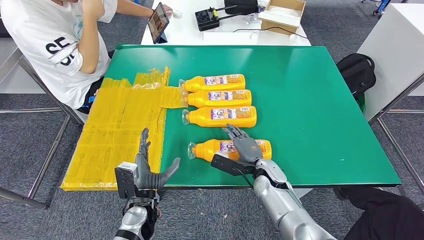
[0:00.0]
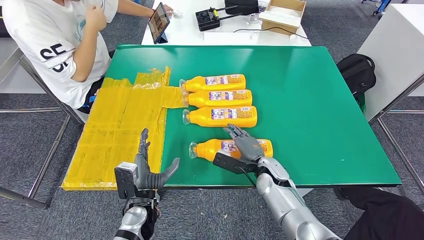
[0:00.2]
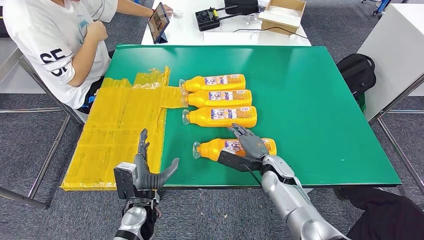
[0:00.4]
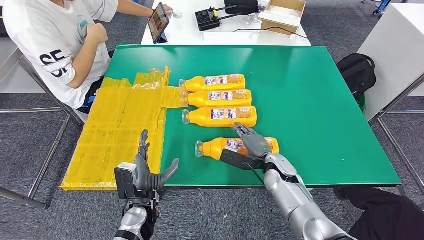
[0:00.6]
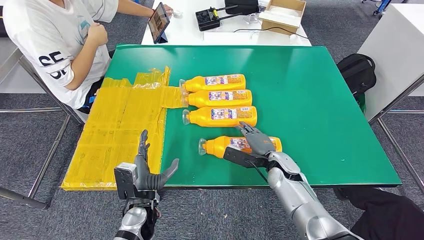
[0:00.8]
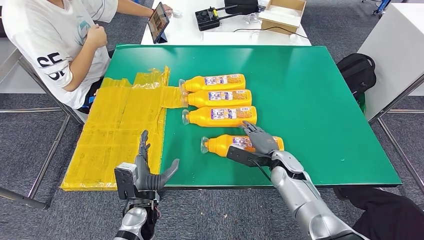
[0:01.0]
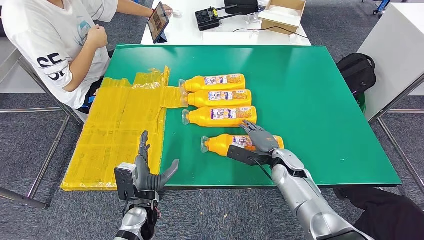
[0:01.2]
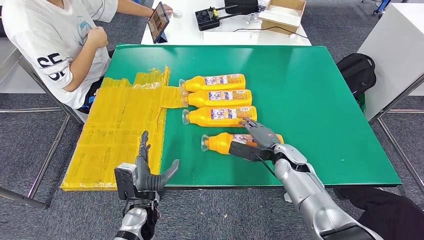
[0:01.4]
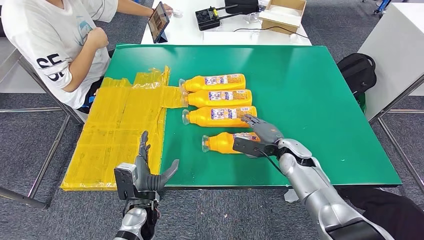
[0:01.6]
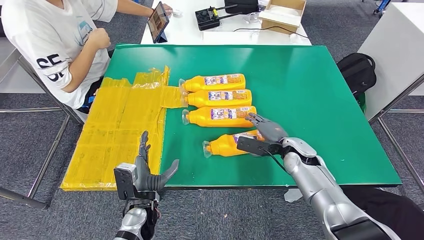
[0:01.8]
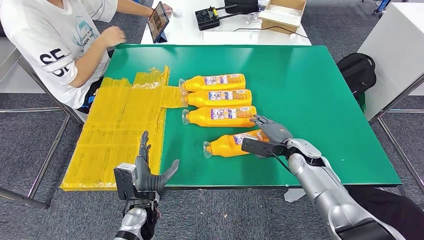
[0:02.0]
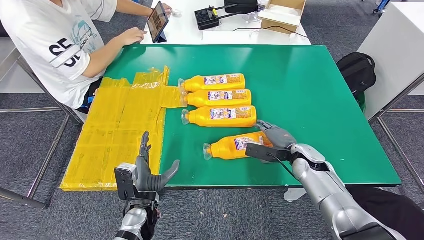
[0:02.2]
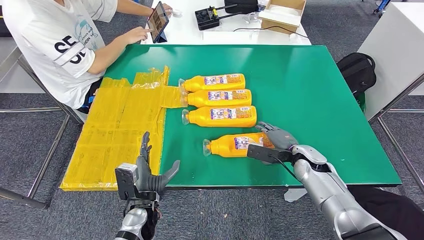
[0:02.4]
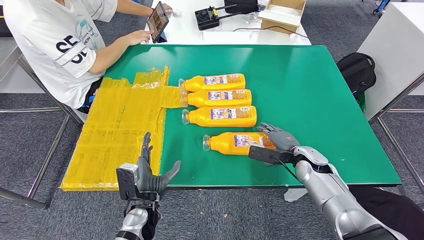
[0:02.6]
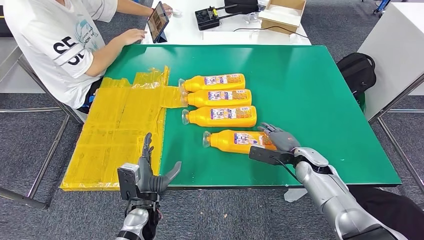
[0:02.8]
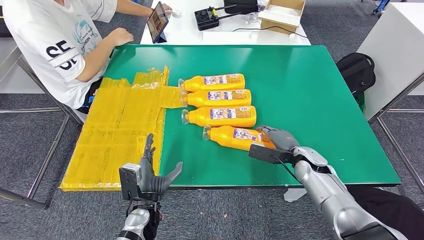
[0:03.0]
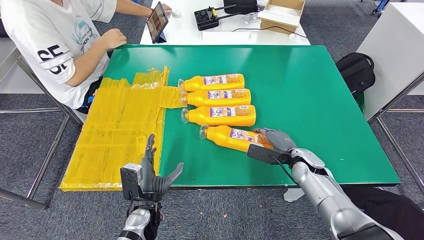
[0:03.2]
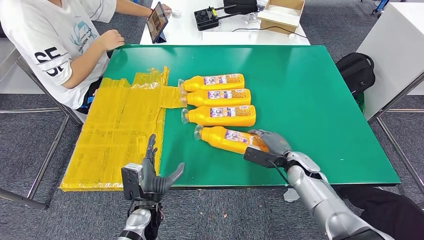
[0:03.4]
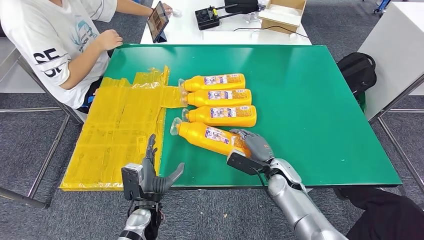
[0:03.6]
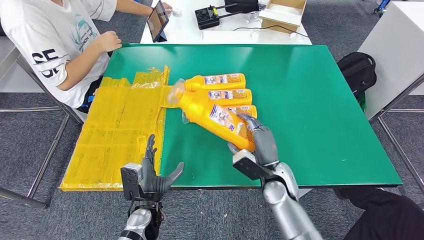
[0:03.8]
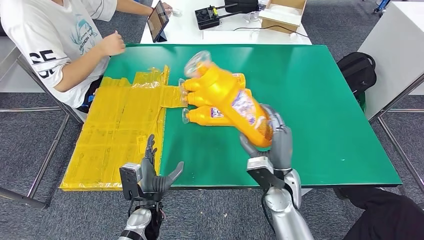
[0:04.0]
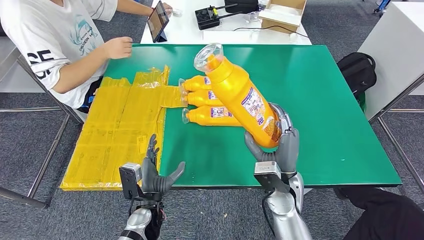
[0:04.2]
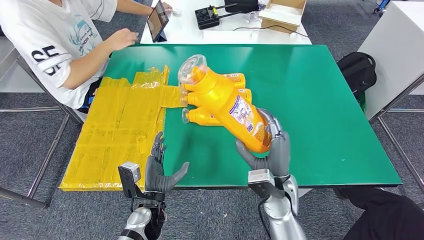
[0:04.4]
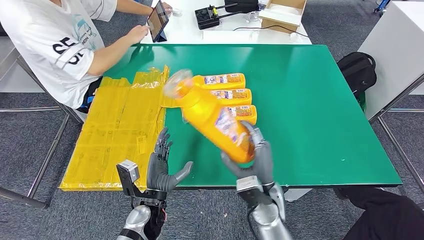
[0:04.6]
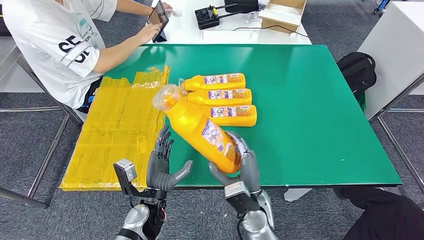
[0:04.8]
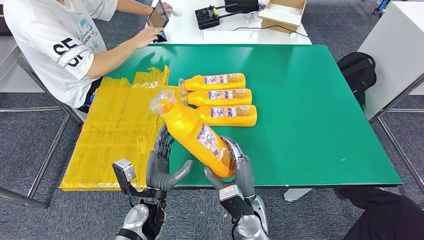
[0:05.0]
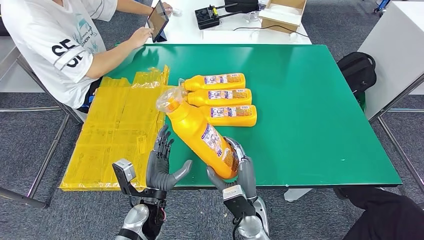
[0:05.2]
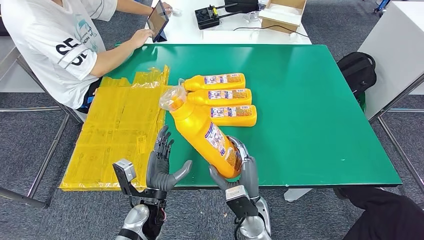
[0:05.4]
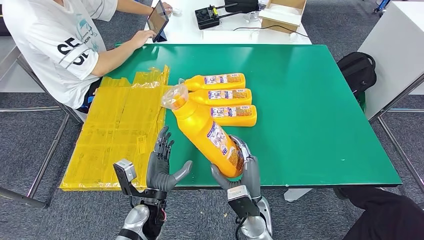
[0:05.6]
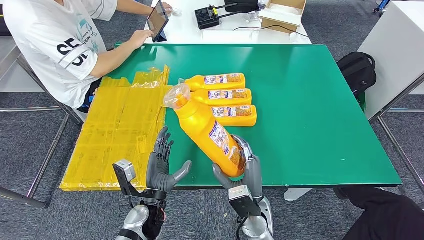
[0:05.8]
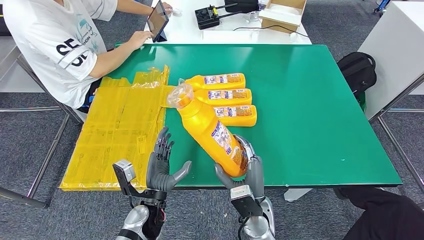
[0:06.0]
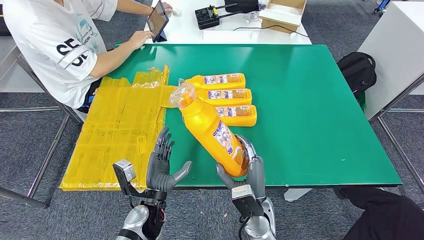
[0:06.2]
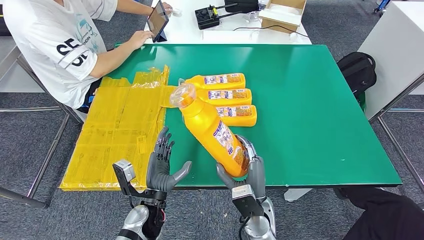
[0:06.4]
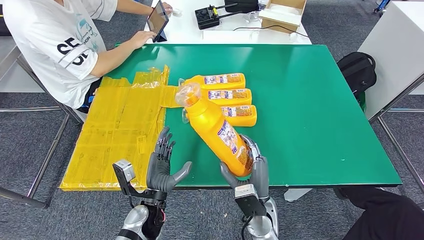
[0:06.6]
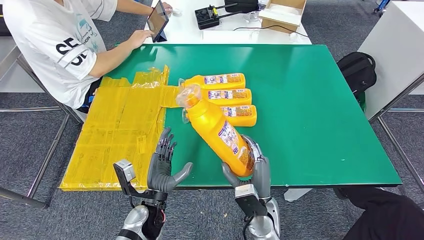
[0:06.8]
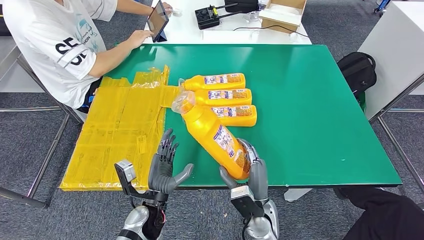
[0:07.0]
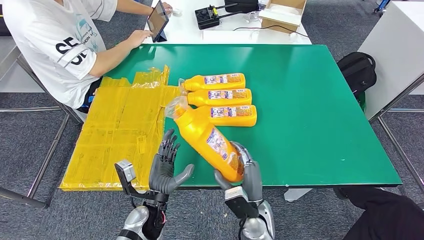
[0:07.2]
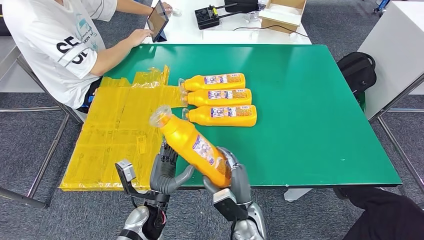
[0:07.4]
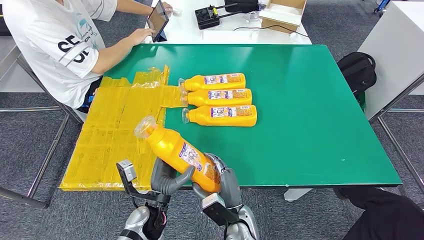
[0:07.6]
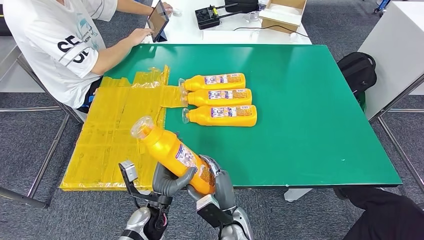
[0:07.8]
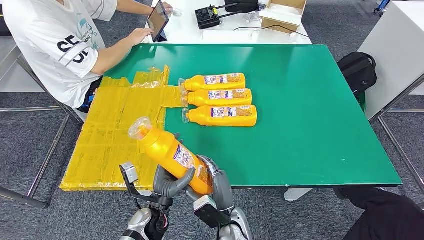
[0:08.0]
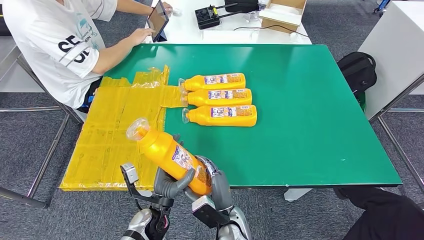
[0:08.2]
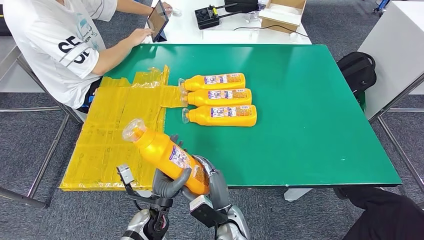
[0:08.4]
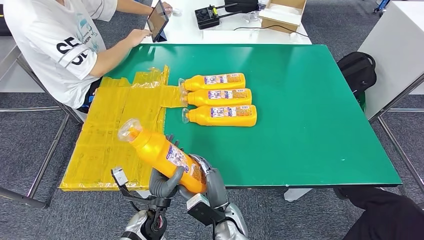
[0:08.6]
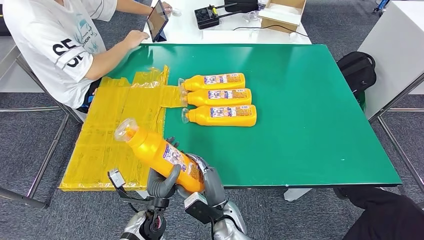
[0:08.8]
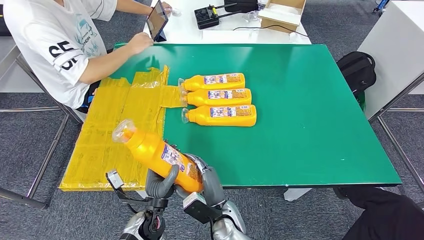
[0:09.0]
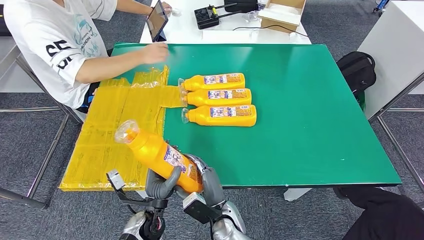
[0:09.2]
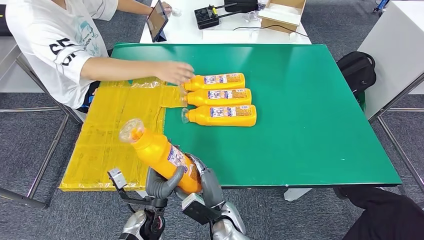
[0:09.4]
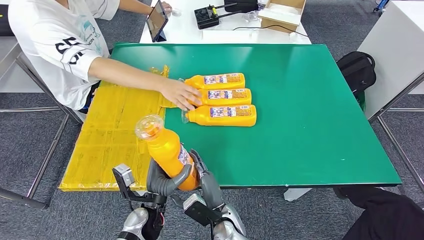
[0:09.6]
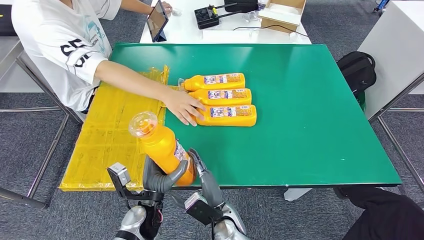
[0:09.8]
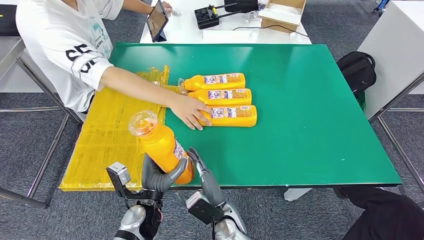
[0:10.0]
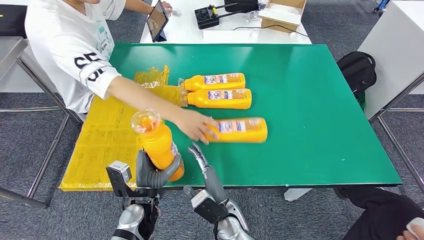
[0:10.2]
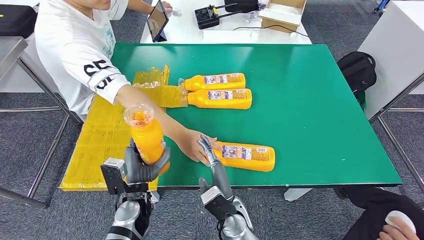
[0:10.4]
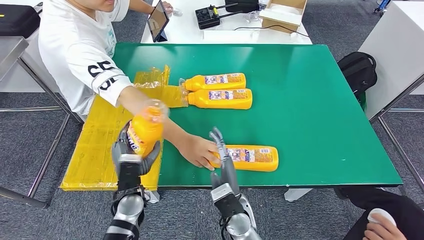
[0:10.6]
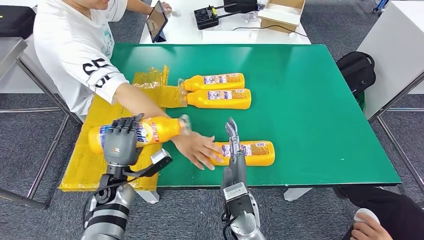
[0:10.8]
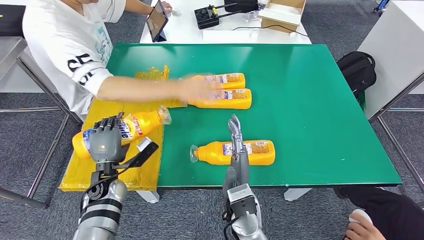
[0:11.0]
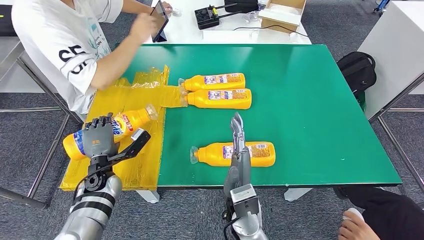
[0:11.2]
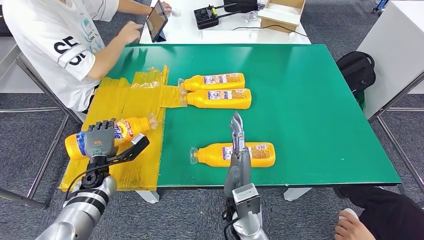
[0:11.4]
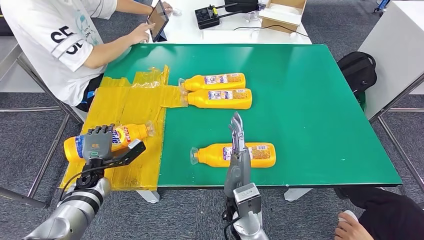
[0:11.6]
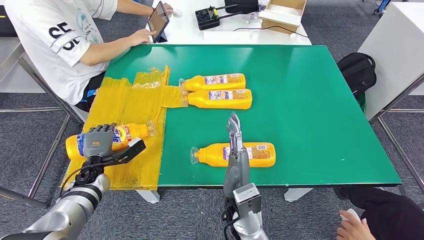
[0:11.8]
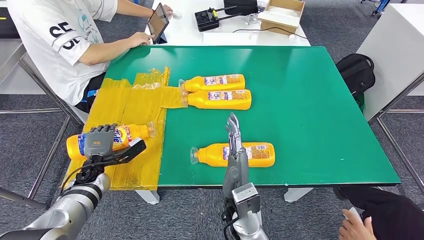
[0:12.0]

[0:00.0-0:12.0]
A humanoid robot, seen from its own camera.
Step, 0:00.0 to 0:04.6: Take the bottle from the table.
Step, 0:05.0 to 0:11.6: Flip the bottle to face forward.
0:00.0 to 0:01.6: The right hand is displaced to the right by about 5 cm.
0:01.6 to 0:03.0: The right hand changes place by approximately 5 cm.
0:03.0 to 0:04.4: The right hand is displaced to the left and backward by some 15 cm.
0:04.4 to 0:06.0: The right hand is displaced downward and to the left by roughly 10 cm.
0:06.0 to 0:07.6: The right hand changes place by approximately 5 cm.
0:07.6 to 0:09.0: The hands make only small movements.

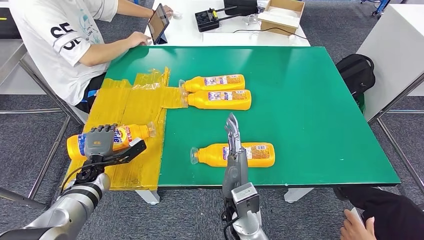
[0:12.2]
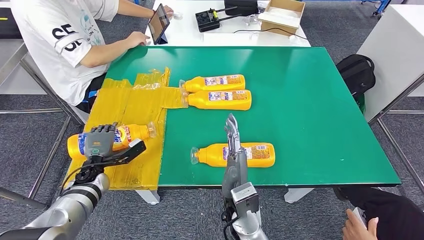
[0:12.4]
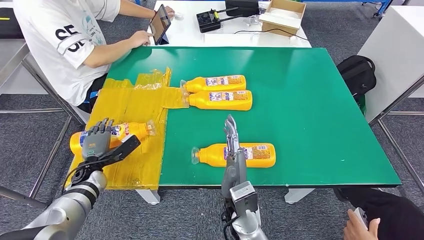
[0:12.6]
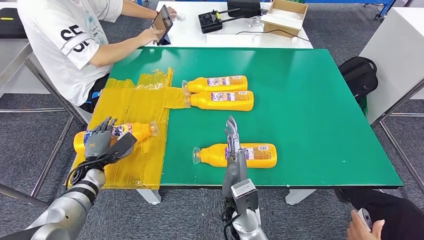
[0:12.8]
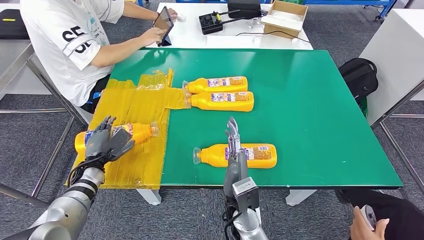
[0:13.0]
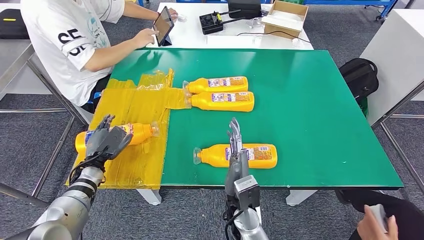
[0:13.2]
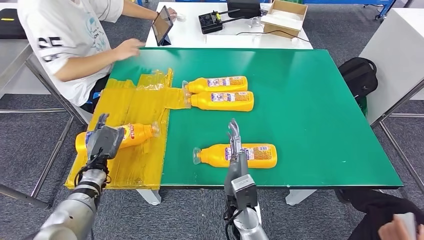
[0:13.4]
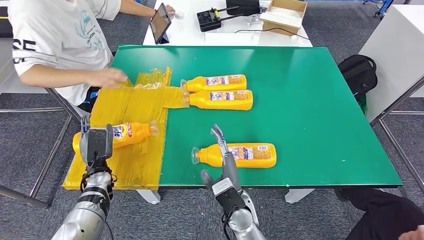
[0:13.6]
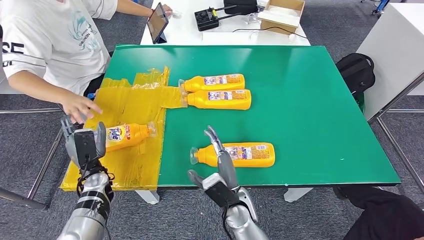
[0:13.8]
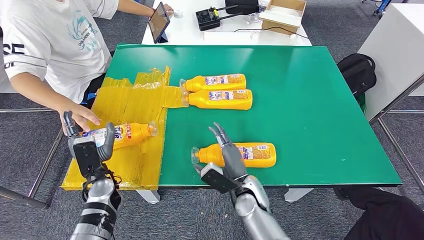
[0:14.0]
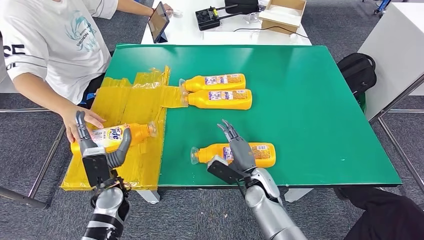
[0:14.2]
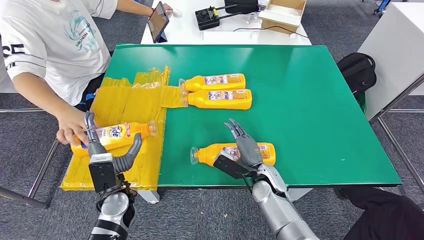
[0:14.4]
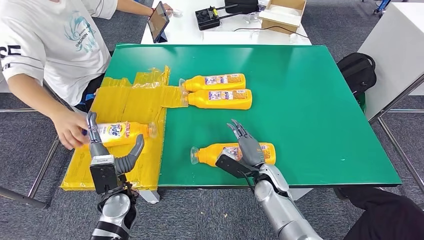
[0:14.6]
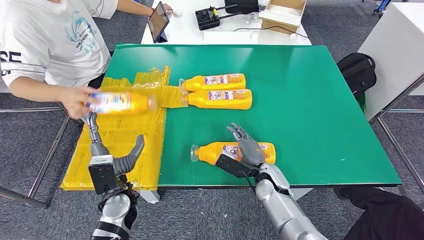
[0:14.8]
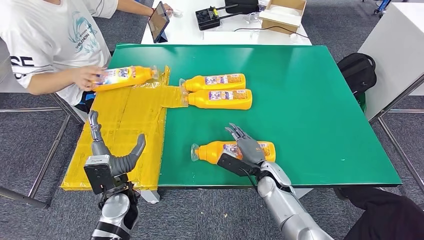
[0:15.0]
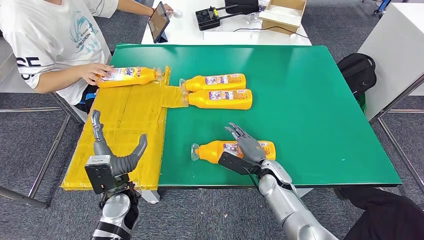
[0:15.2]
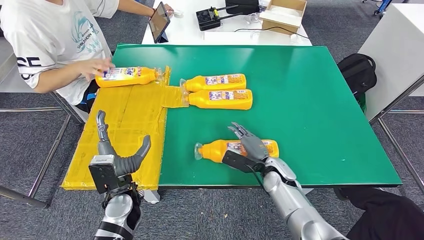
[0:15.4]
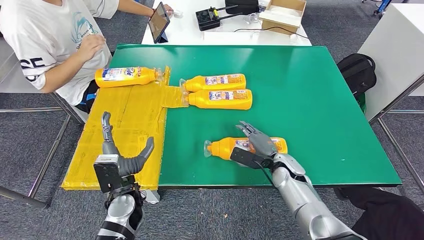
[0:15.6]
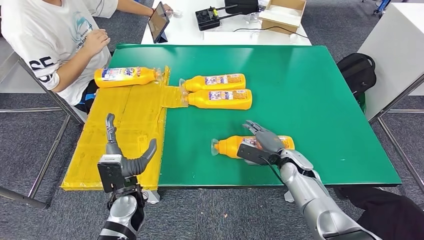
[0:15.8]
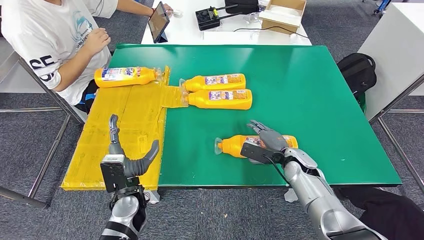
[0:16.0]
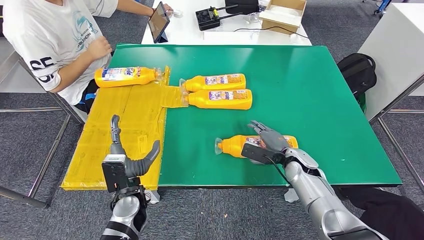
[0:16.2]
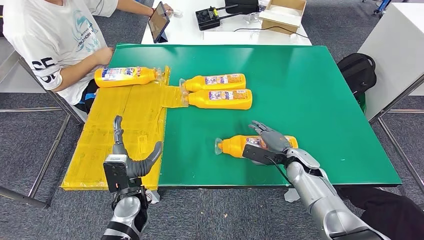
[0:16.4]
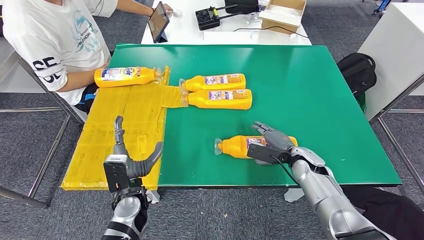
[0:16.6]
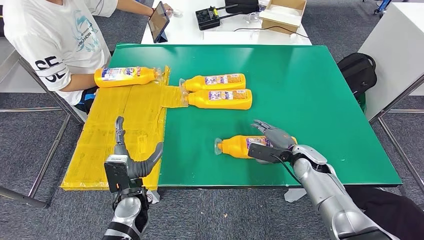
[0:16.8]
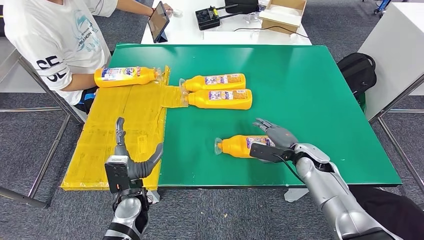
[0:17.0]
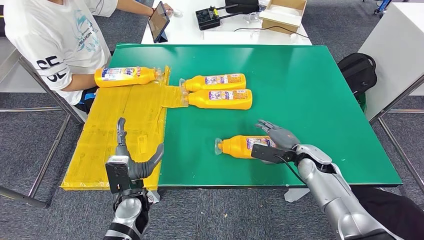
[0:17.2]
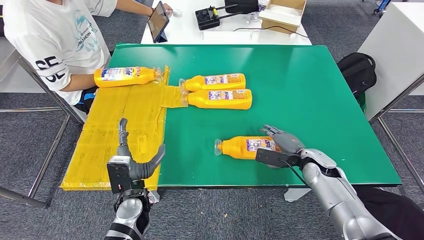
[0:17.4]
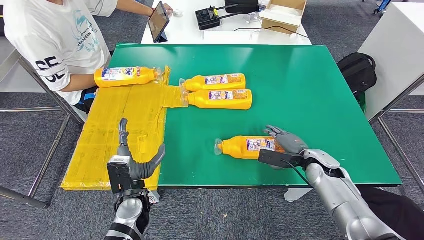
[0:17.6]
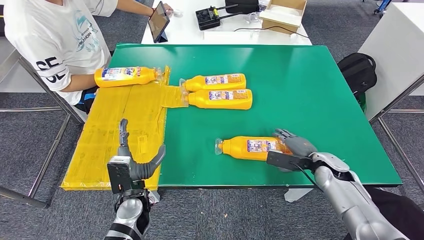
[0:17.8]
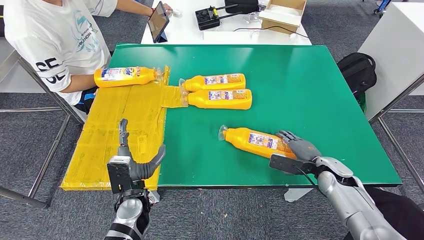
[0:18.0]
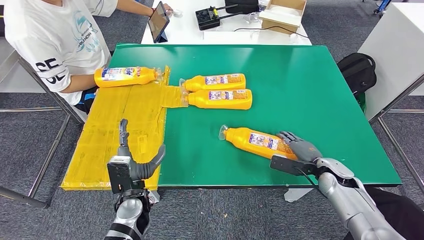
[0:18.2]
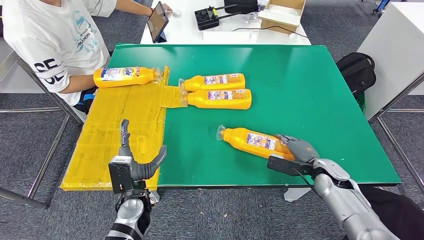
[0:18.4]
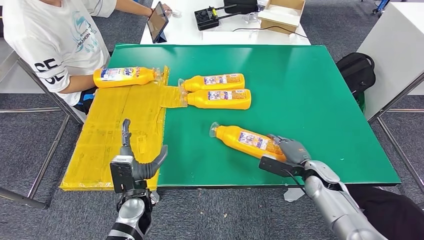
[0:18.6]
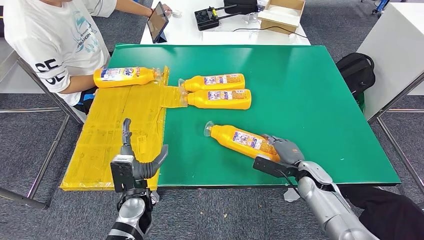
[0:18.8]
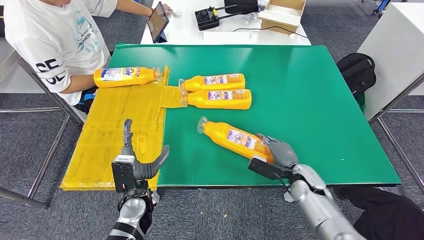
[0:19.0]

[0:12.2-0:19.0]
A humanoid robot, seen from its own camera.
0:15.0 to 0:16.2: The right hand moves to the right, about 10 cm.
0:16.2 to 0:17.6: The right hand shifts about 5 cm to the right.
0:17.6 to 0:19.0: The right hand moves approximately 5 cm.
